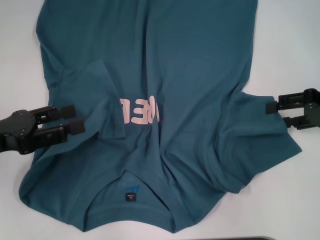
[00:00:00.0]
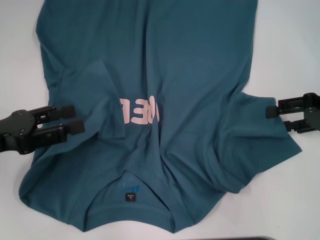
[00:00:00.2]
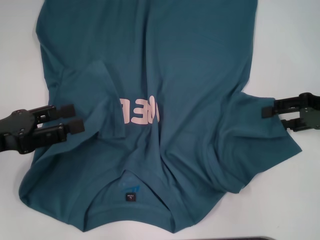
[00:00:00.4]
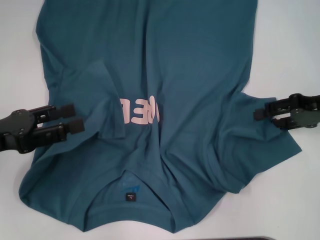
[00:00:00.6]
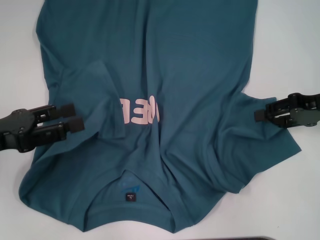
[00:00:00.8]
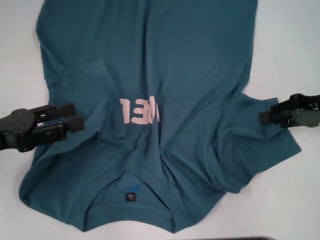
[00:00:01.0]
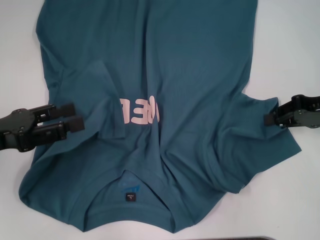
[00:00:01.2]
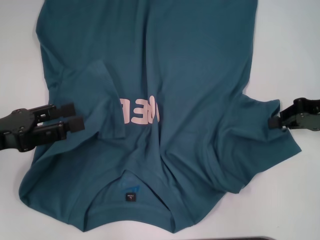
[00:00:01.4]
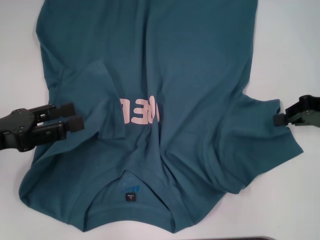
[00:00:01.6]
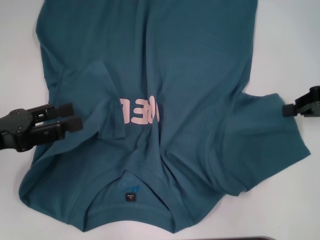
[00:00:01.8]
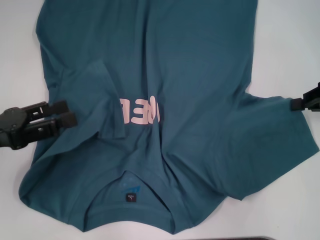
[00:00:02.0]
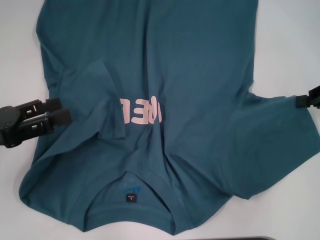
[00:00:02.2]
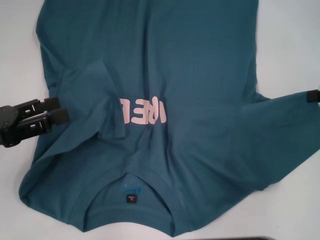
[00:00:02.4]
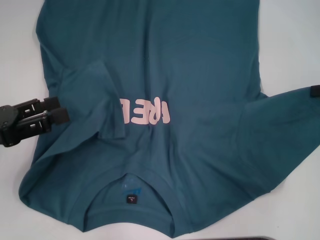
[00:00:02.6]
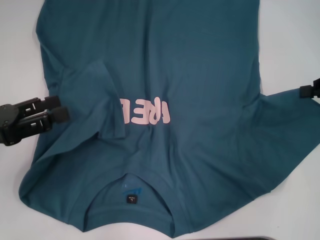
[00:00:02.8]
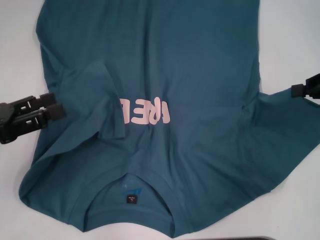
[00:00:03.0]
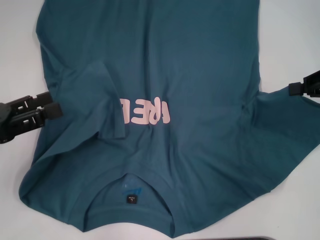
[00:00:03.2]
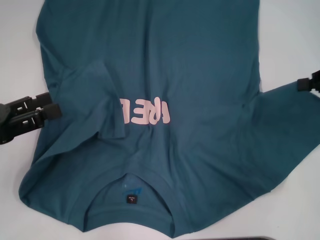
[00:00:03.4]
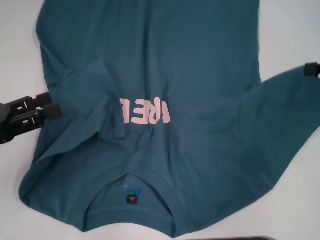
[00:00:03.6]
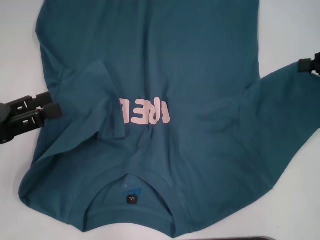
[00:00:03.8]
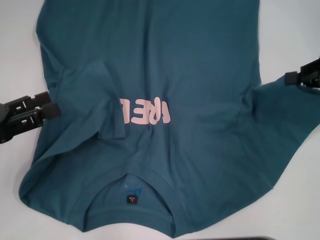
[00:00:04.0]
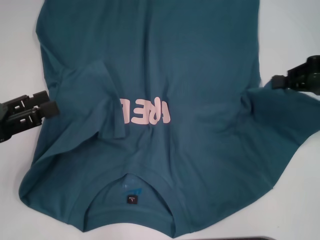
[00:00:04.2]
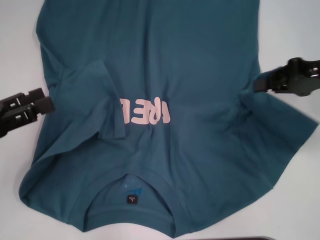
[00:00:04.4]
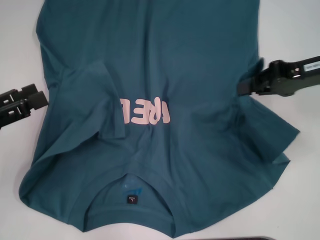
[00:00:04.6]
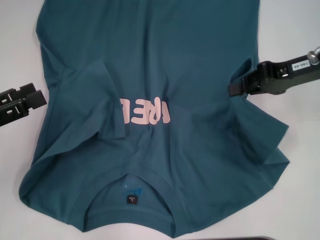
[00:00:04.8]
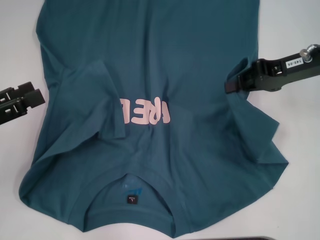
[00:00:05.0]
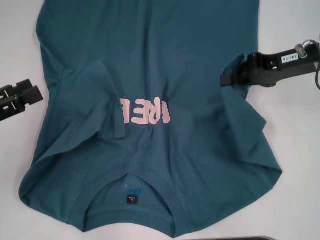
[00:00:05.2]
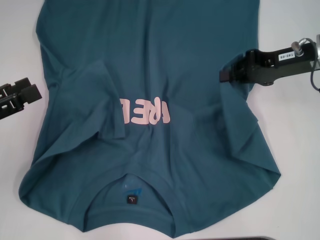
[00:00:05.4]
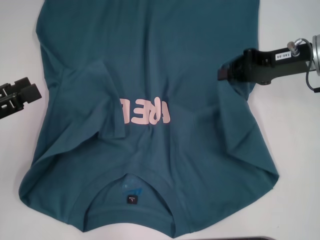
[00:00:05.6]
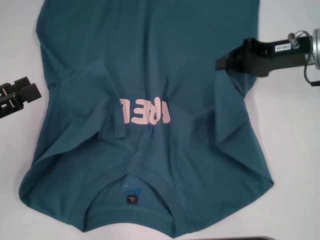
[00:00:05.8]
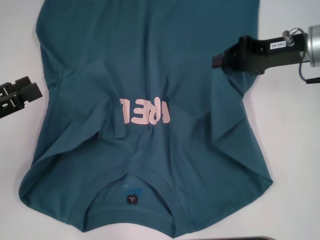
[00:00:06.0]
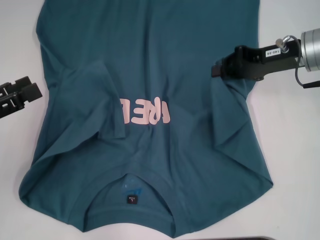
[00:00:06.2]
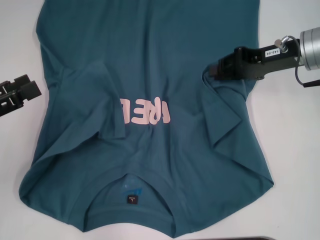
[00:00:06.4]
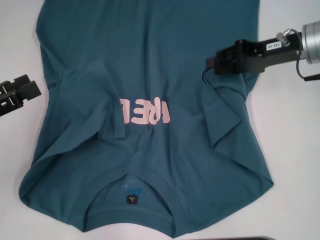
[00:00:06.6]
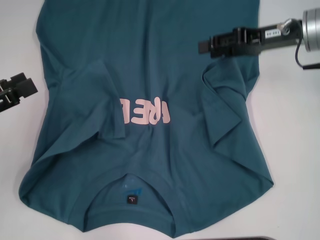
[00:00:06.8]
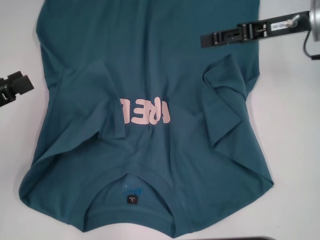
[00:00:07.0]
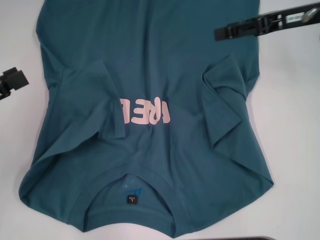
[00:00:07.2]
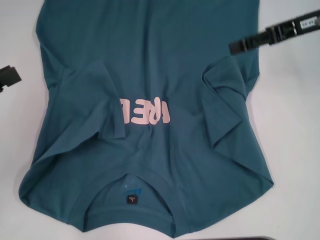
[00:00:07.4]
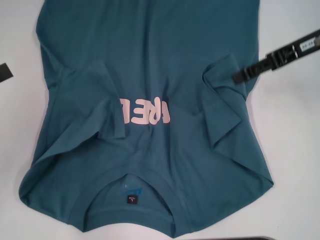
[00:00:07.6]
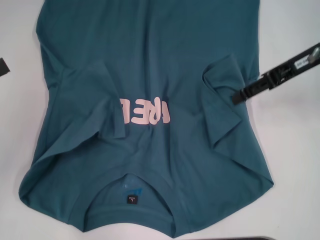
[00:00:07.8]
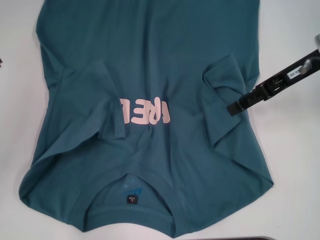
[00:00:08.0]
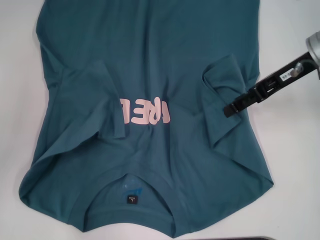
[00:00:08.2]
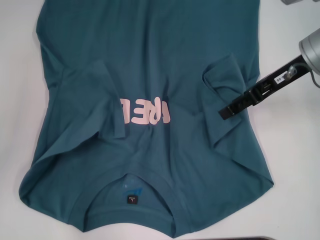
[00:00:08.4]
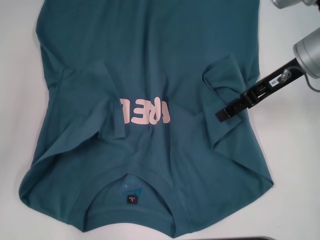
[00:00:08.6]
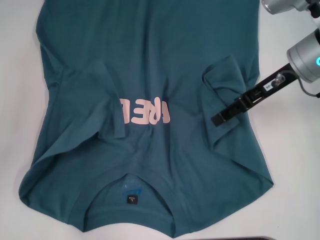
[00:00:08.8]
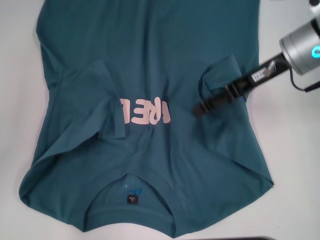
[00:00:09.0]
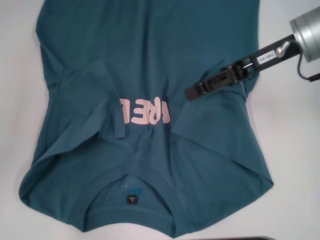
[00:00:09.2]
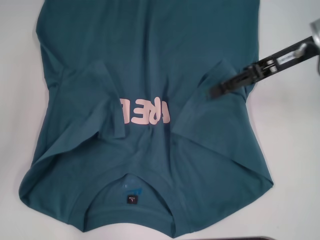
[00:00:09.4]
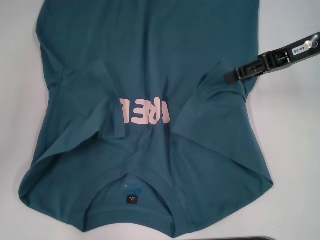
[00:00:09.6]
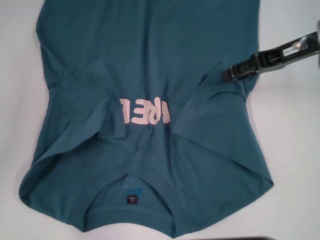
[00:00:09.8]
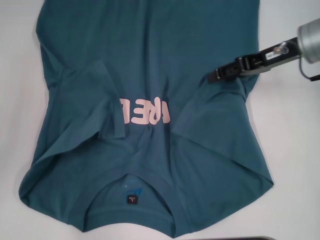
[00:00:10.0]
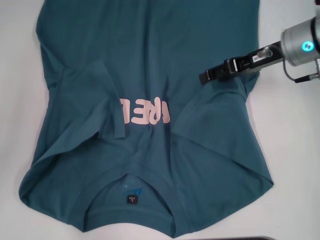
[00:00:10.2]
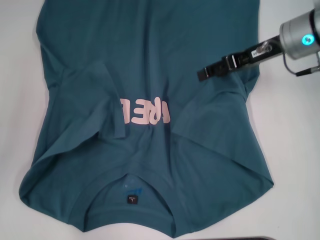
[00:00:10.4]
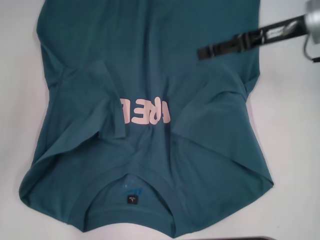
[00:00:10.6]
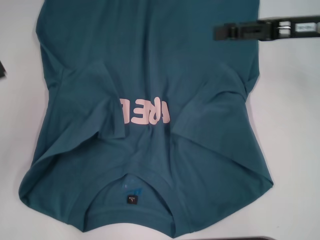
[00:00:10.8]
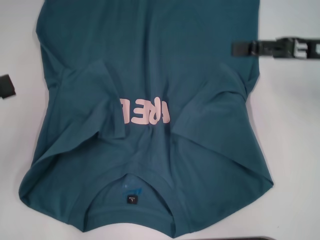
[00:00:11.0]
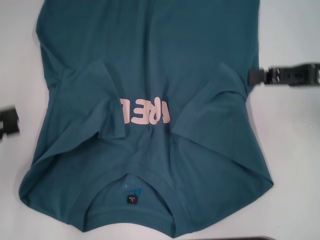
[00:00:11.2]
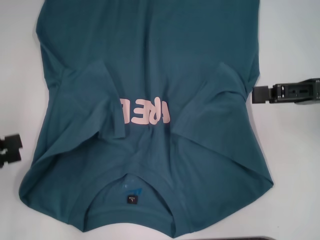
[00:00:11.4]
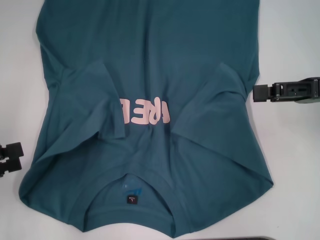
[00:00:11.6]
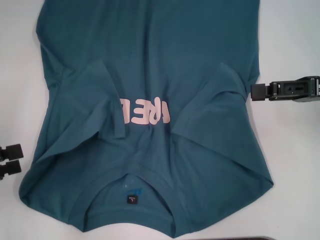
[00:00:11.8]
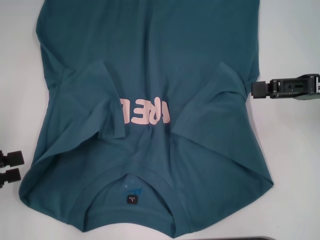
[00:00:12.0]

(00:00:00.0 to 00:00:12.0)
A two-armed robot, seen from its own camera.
Step, 00:00:00.0 - 00:00:09.8: Fold the bottom right sleeve to the right.
00:00:00.0 - 00:00:01.6: The right gripper closes.
00:00:01.6 - 00:00:03.0: The grippers stay close to where they were, moving slightly.
00:00:03.0 - 00:00:04.4: The right gripper travels to the left by roughly 5 cm.
00:00:04.4 - 00:00:06.0: The right gripper moves to the left, approximately 5 cm.
00:00:06.0 - 00:00:07.6: The right gripper heads upward, covering some 5 cm, and opens up.
00:00:07.6 - 00:00:09.0: The right gripper goes approximately 5 cm to the left.
00:00:10.4 - 00:00:12.0: The right gripper is displaced to the right and backward by some 15 cm; the left gripper shifts by roughly 5 cm.

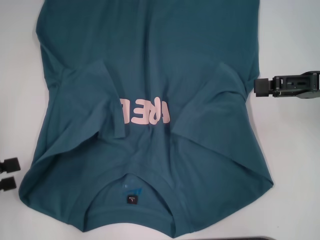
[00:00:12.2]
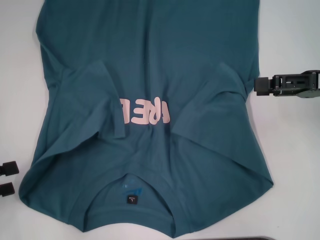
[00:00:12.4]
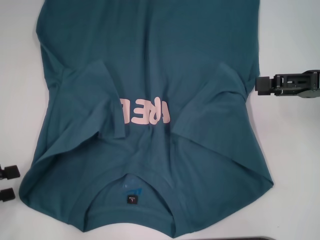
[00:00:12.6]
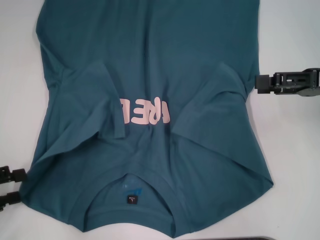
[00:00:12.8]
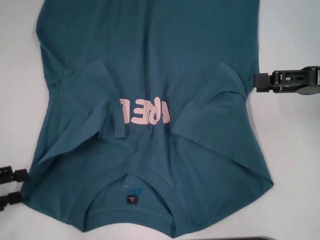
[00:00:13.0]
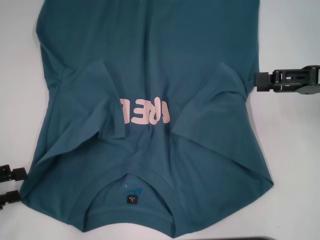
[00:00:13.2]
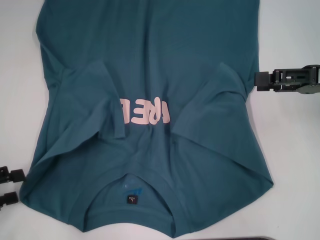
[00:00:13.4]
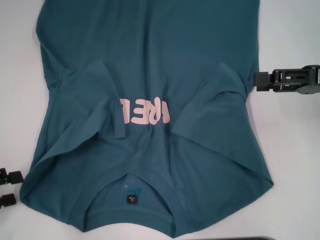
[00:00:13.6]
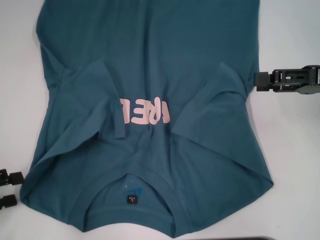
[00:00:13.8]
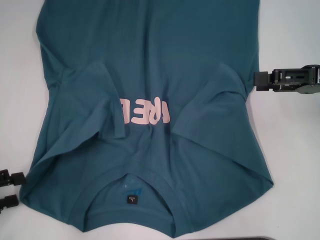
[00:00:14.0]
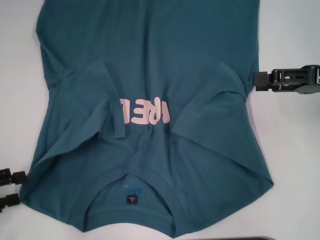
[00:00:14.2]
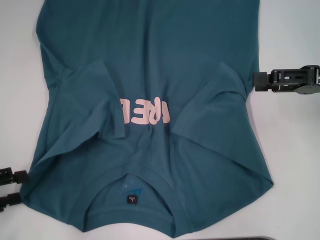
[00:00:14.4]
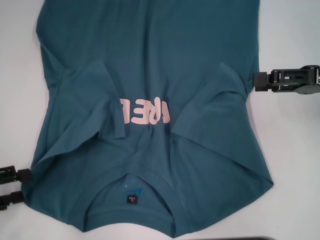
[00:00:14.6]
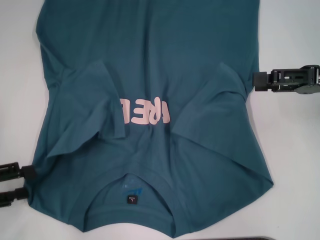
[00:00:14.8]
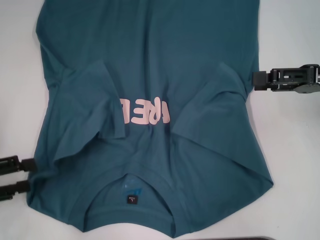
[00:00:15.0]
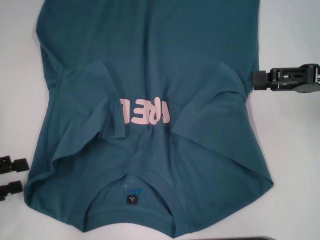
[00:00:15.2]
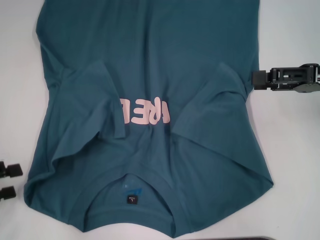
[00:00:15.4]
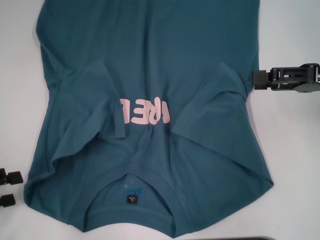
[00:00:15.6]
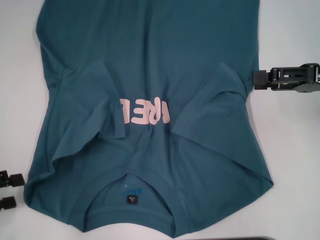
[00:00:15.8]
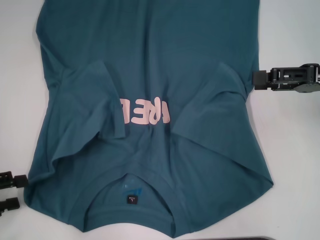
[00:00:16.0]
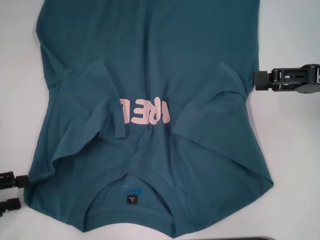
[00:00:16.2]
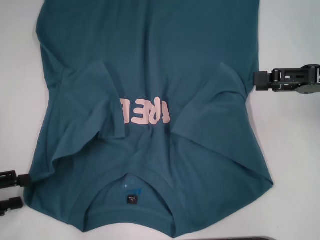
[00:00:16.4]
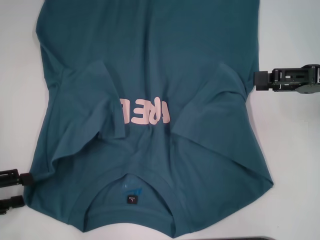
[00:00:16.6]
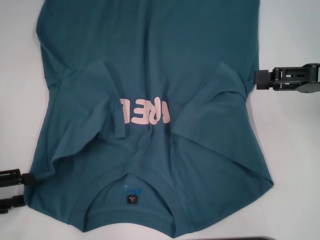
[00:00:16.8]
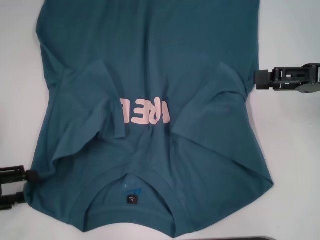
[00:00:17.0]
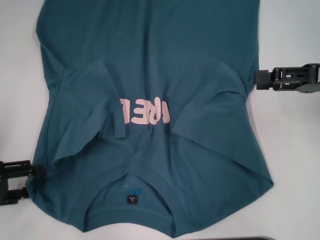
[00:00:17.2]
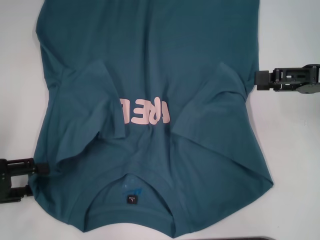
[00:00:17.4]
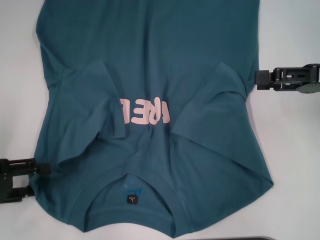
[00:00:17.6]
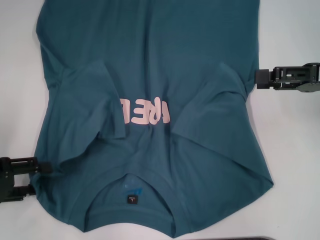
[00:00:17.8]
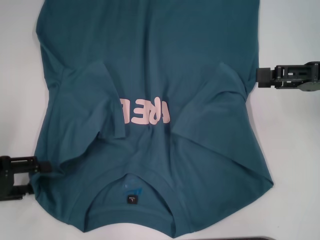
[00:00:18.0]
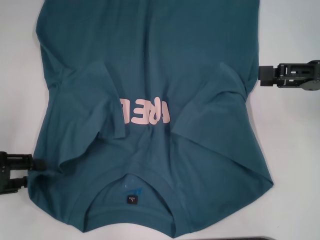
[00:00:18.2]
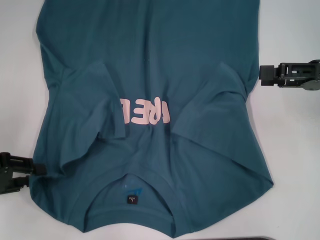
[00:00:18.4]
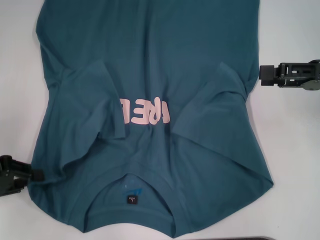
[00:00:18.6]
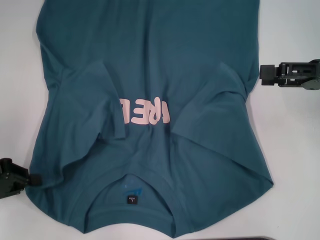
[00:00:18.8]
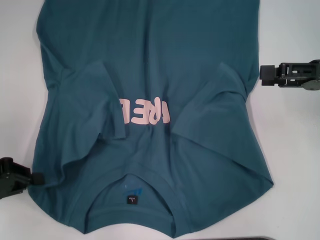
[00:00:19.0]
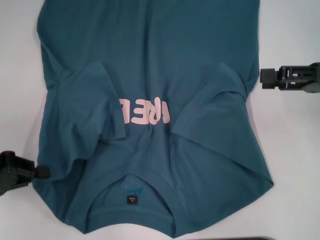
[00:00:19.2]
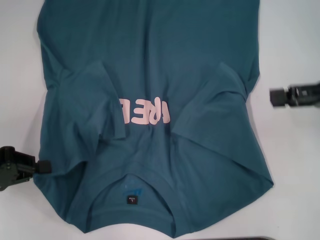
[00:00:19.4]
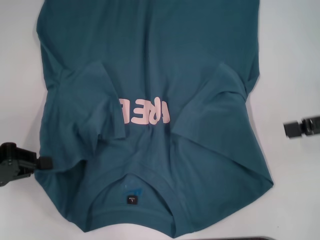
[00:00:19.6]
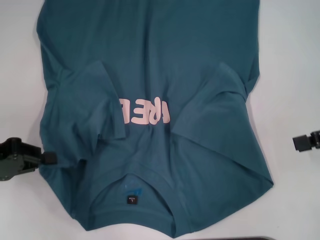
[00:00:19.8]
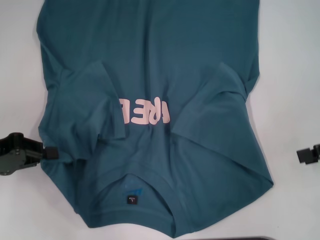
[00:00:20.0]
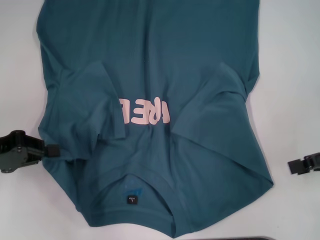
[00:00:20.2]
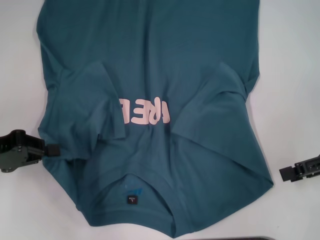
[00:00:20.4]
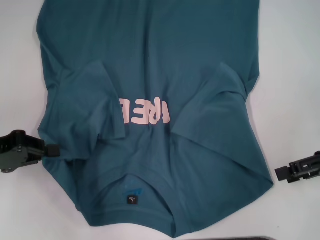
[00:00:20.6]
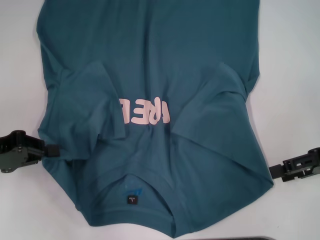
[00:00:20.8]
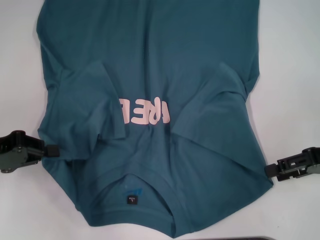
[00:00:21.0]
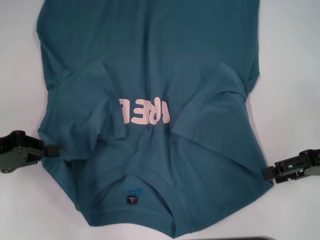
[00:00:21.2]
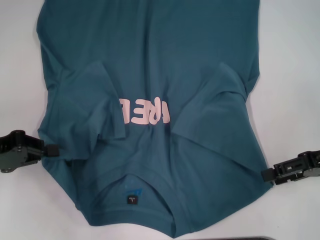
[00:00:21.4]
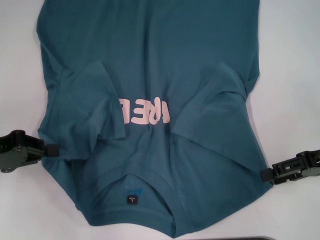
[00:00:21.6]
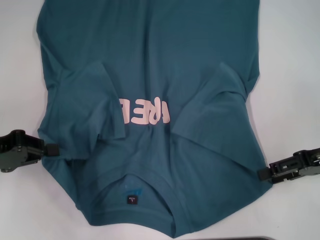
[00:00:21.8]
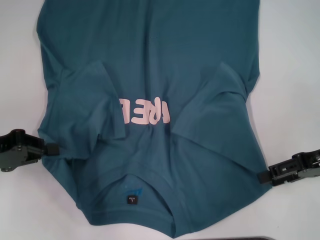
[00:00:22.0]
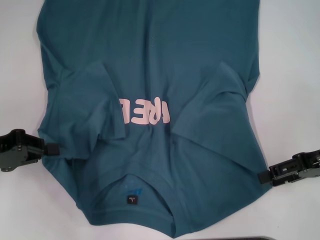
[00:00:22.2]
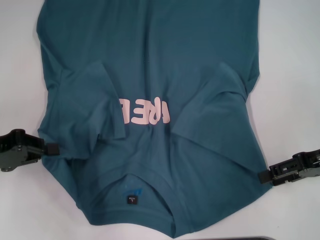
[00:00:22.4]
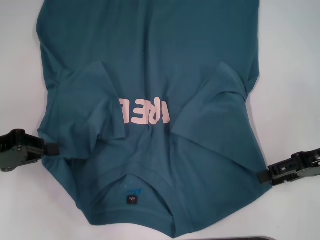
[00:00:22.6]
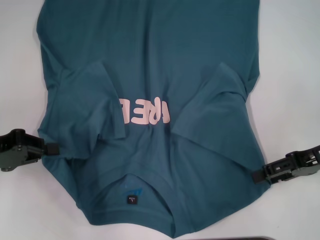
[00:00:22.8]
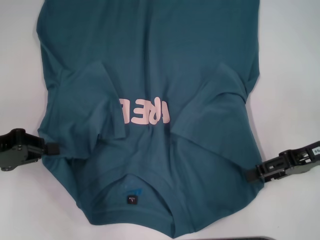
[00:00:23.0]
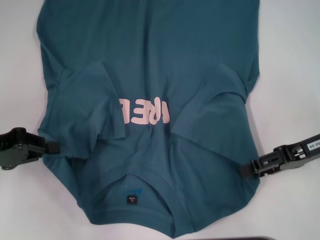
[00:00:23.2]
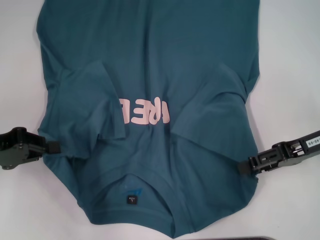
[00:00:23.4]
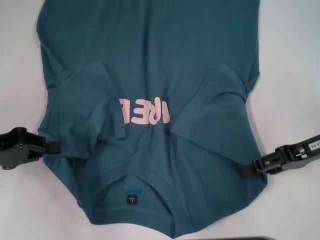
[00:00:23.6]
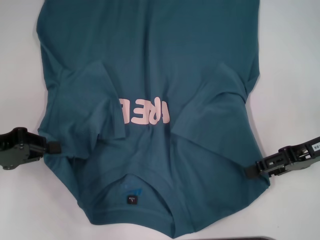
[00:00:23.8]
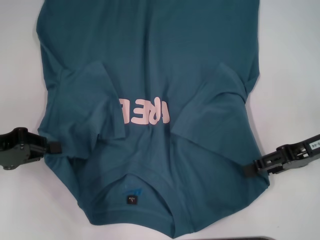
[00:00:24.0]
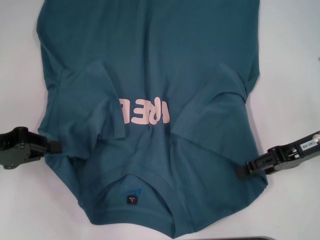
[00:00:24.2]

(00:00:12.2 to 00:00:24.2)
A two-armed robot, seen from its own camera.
Step, 00:00:12.2 - 00:00:18.8: Grab the bottom left corner with your left hand.
00:00:12.2 - 00:00:18.2: The grippers stay close to where they were, moving slightly.
00:00:18.2 - 00:00:19.8: The left gripper closes its fingers.
00:00:19.8 - 00:00:21.2: The right gripper shifts by roughly 5 cm.
00:00:21.2 - 00:00:22.6: Neither gripper changes place.
00:00:22.6 - 00:00:24.2: The grippers move only a little.